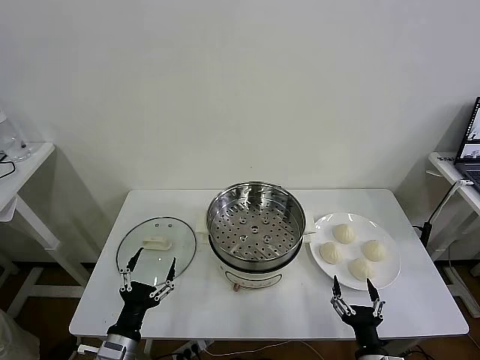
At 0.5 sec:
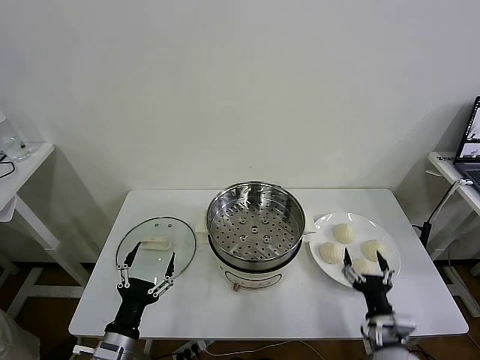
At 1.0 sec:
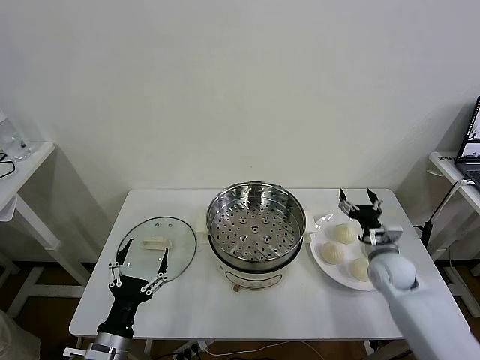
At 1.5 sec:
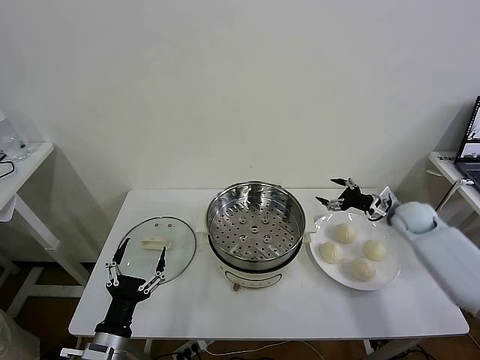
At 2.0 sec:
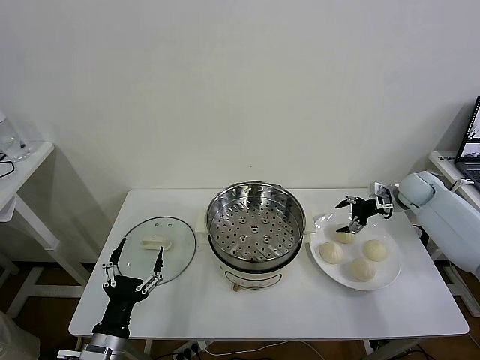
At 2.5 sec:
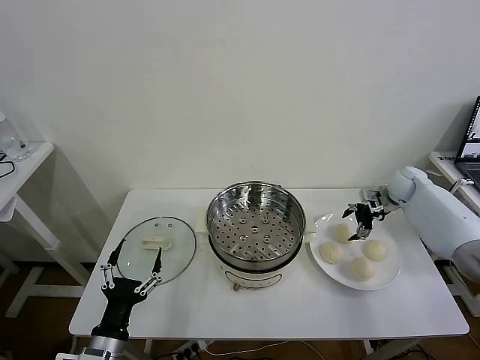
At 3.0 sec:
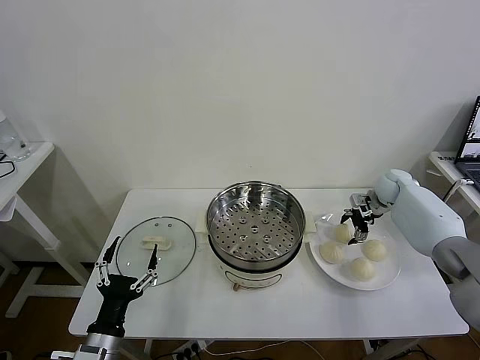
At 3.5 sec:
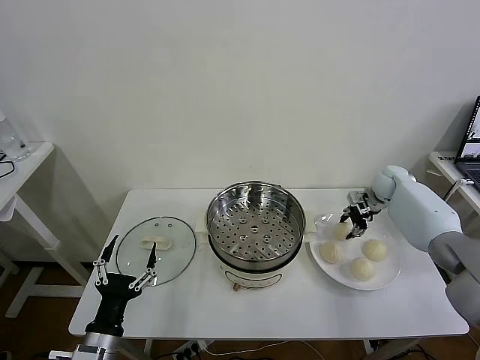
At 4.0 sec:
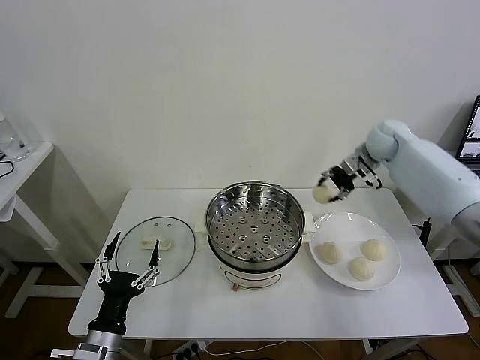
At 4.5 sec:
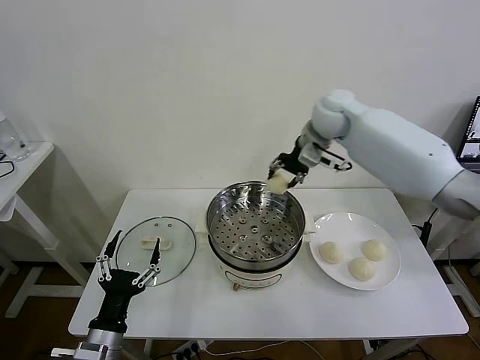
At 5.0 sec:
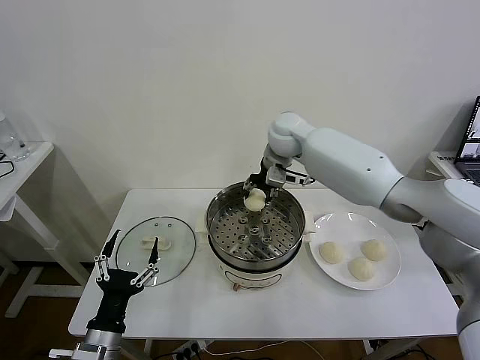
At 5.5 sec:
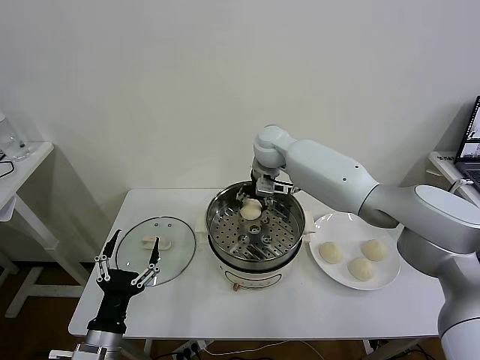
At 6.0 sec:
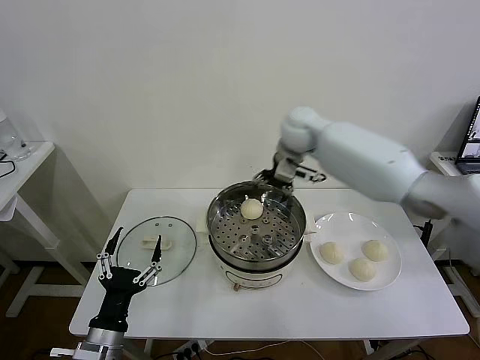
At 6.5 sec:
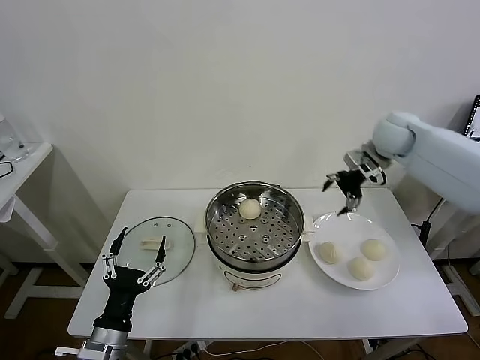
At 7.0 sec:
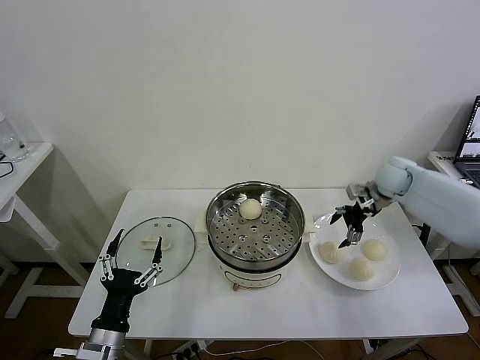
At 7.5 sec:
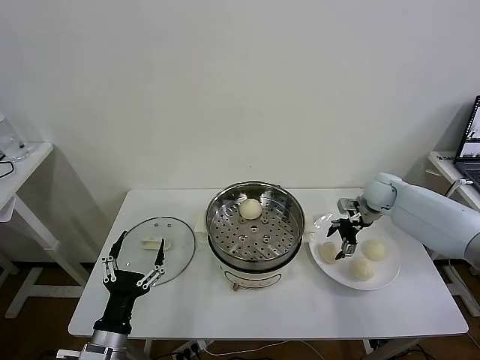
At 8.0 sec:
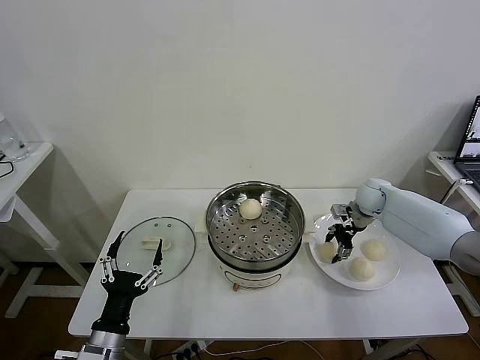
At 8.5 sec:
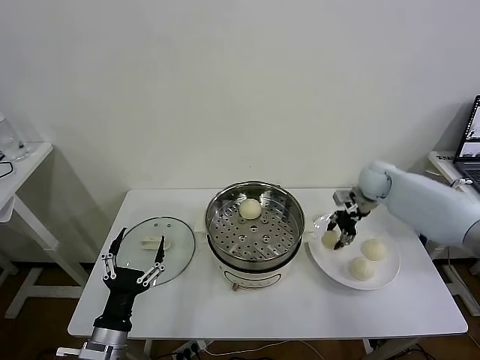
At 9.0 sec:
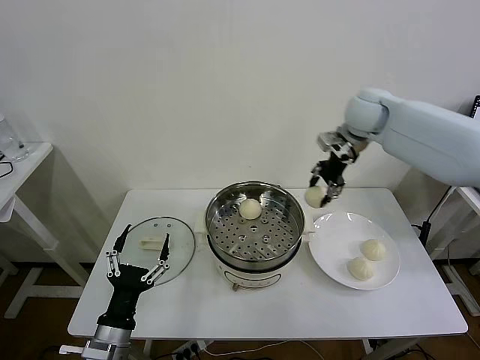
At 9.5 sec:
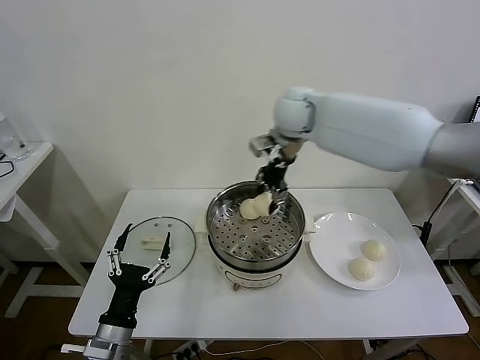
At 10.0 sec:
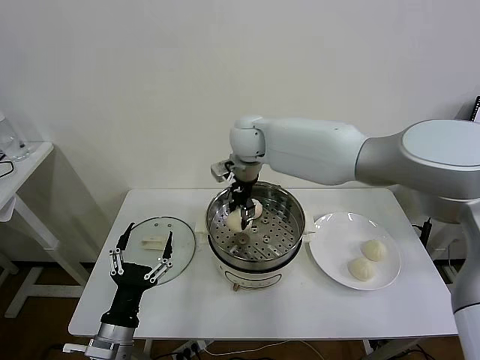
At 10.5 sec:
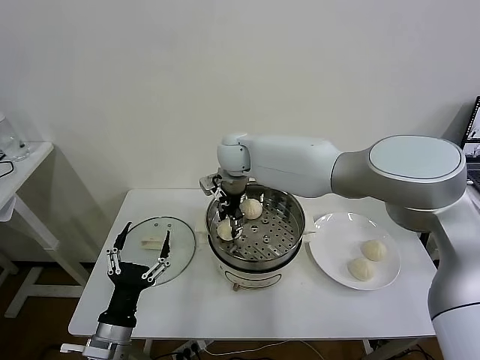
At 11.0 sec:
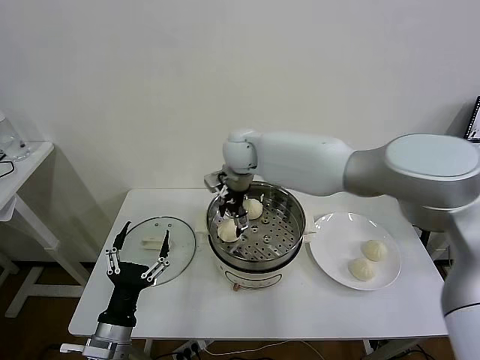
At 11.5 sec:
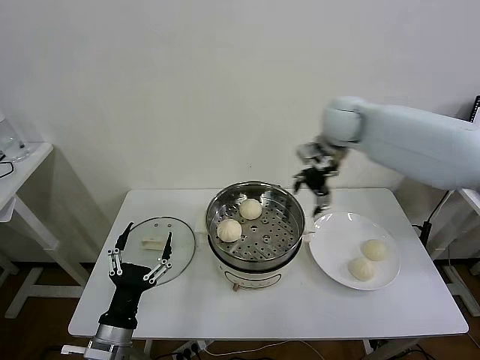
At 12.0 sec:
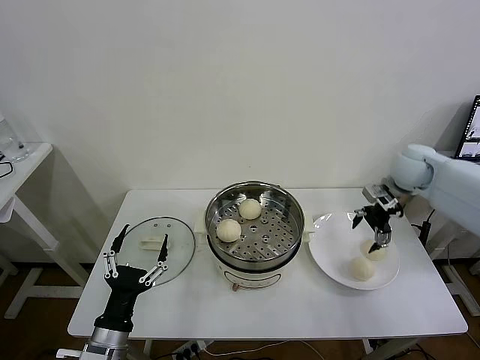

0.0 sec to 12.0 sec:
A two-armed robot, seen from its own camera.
Task of the whole recording: take steamed baozi put them in steamer then cover it.
Step, 0.0 sec to 3.0 sec: Grasp the baozi in the plate with right gripper.
Step, 3.5 sec to 5.5 sec: Place the baozi on the steamer with right gripper.
Step, 6.0 sec to 8.0 sec: Grasp the baozi in the plate with right gripper.
Step, 8.5 sec to 10.5 sec: Place the baozi on the steamer with right gripper.
2.0 sec to 4.0 sec: The right gripper moves upward and to the left, approximately 20 cm, and closes.
4.0 sec to 6.0 sec: The right gripper goes roughly 15 cm to the left, and opens its fingers.
6.0 sec to 8.0 sec: The right gripper heads downward and to the right, covering roughly 30 cm, and closes up.
8.0 sec to 10.0 sec: The right gripper moves to the left and upward, about 40 cm.
10.0 sec to 12.0 sec: The right gripper is displaced to the right by about 40 cm, and opens up.

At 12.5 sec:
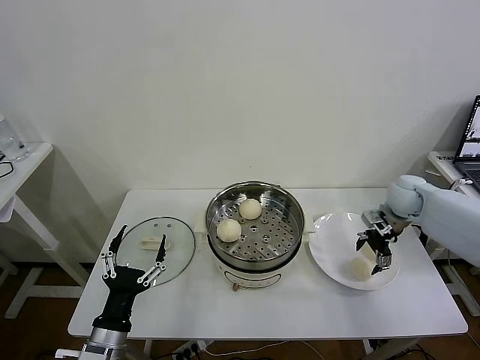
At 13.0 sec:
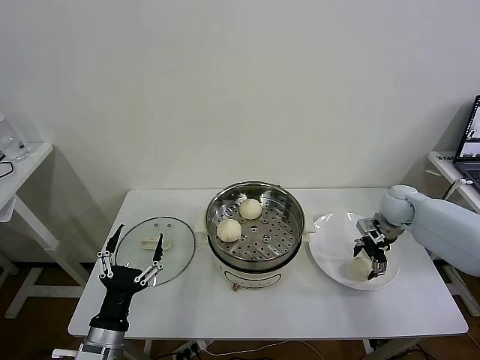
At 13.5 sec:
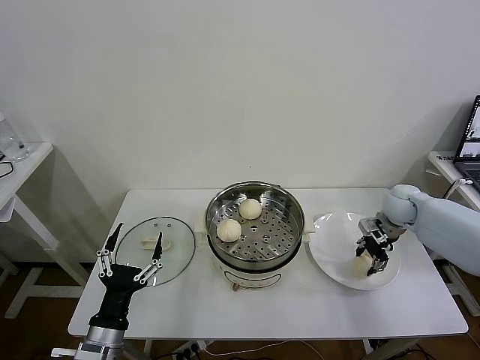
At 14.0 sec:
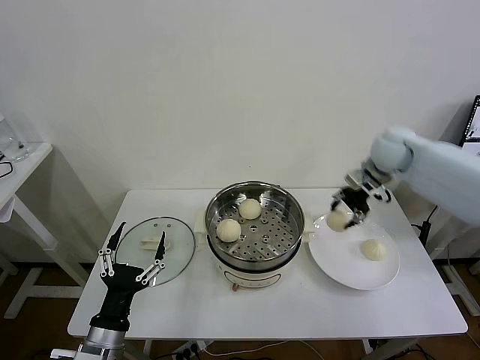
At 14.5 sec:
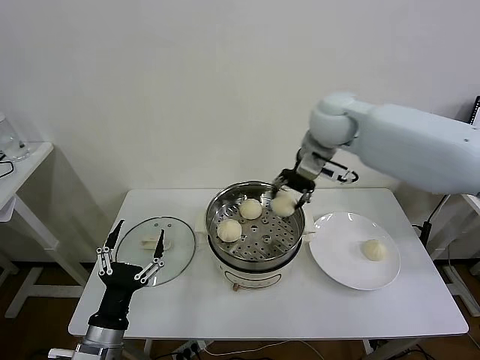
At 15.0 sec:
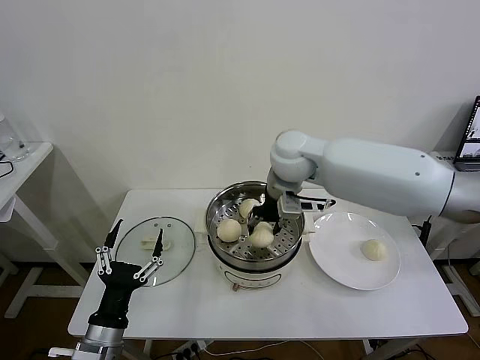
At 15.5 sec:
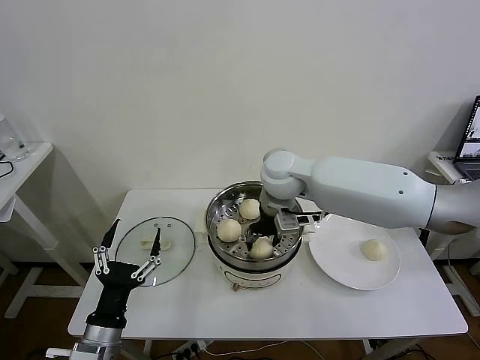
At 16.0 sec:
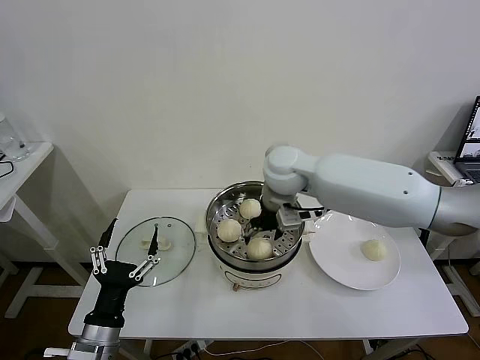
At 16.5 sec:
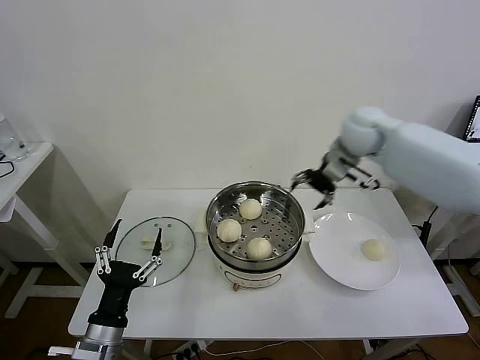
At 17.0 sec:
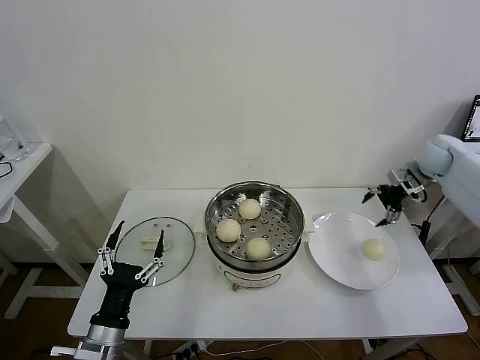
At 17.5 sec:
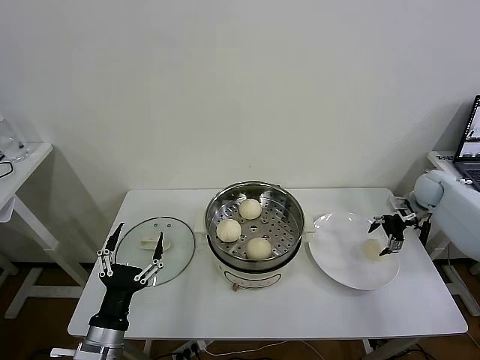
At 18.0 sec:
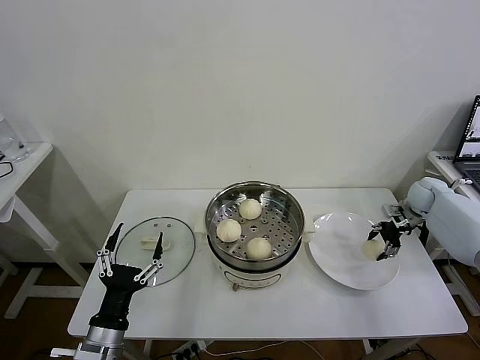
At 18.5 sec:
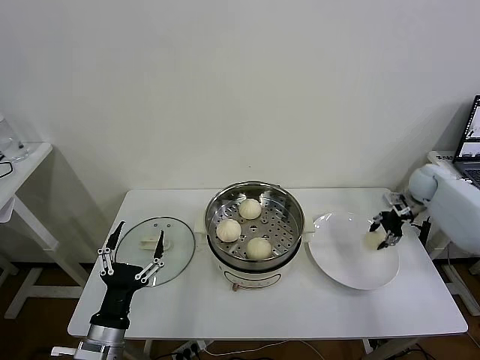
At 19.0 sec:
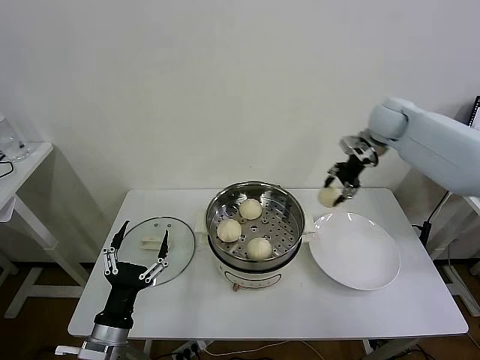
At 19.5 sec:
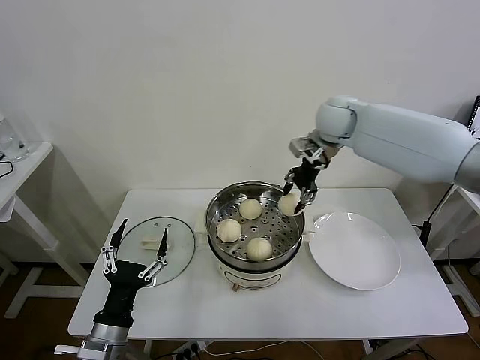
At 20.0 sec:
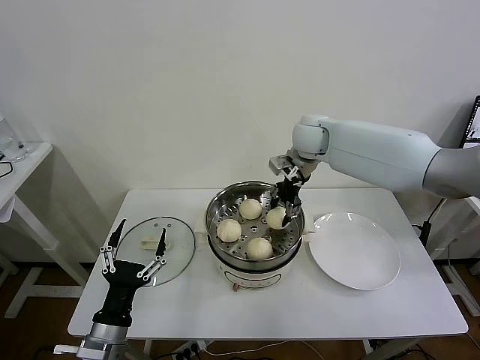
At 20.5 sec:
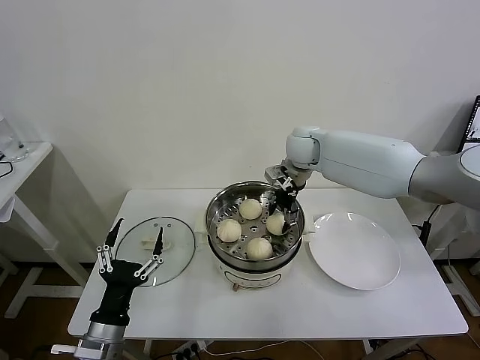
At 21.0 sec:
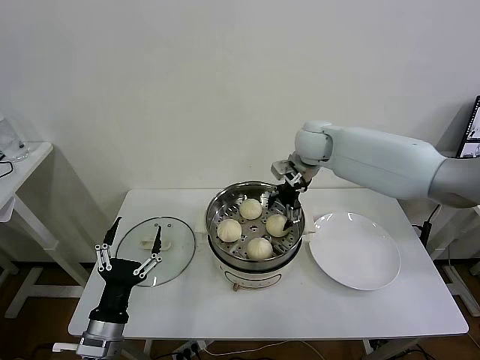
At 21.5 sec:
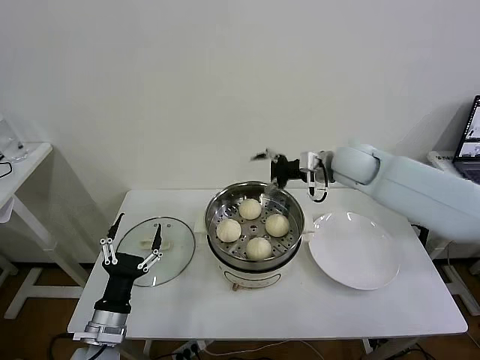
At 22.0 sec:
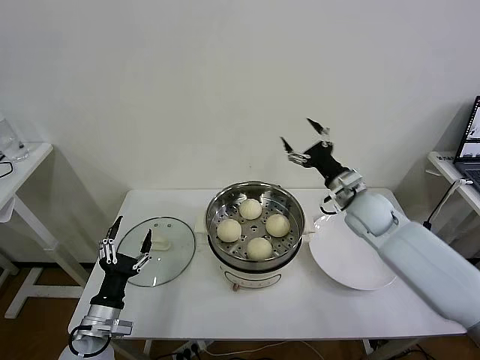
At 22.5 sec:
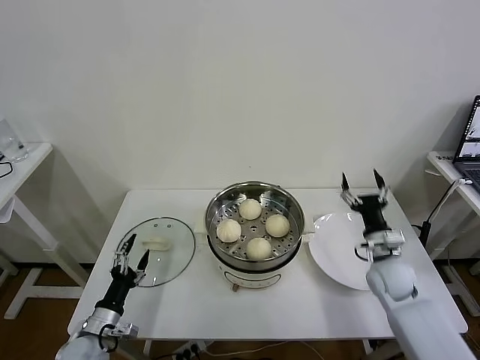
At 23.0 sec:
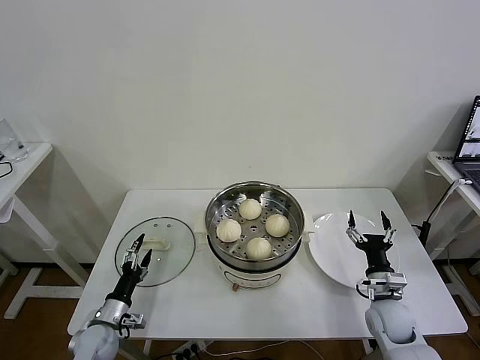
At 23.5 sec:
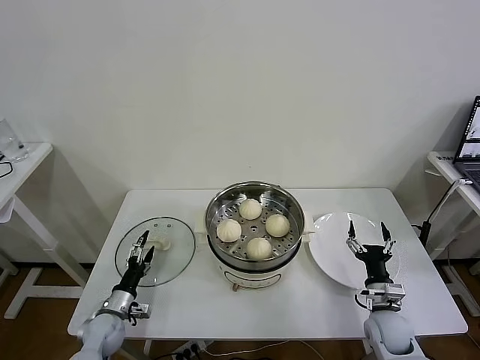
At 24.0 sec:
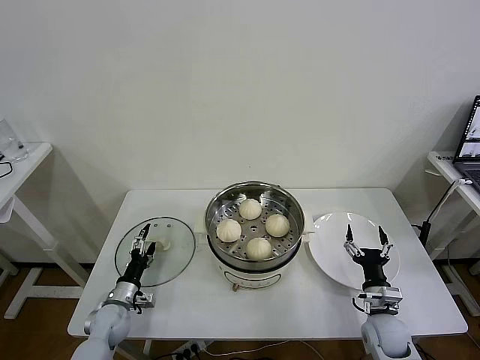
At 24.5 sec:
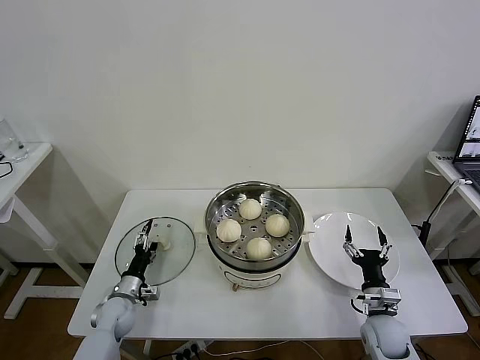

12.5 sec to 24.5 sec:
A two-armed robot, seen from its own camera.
Task of the whole recording: take steamed baozi put them in steamer then cover it.
Step, 13.5 sec to 15.5 sec: Place the baozi on the steamer with right gripper.
Step, 16.5 sec to 18.0 sec: Grasp the baozi in the plate with right gripper.
Step, 18.5 sec to 21.0 sec: Place the baozi on the steamer with right gripper.
12.5 sec to 14.5 sec: The right gripper moves to the left and upward, about 30 cm, and closes its fingers.
14.5 sec to 16.5 sec: The right gripper heads to the right, covering about 10 cm, and opens.
16.5 sec to 18.5 sec: The right gripper goes about 25 cm to the right and downward, and closes up.
18.5 sec to 20.5 sec: The right gripper shifts approximately 35 cm to the left.
20.5 sec to 22.5 sec: The left gripper is displaced downward, to the left and forward by some 15 cm; the right gripper travels backward, downward and to the right by roughly 35 cm, and opens its fingers.
22.5 sec to 24.5 sec: The right gripper goes about 15 cm backward and downward; the left gripper heads forward and downward, covering roughly 15 cm.

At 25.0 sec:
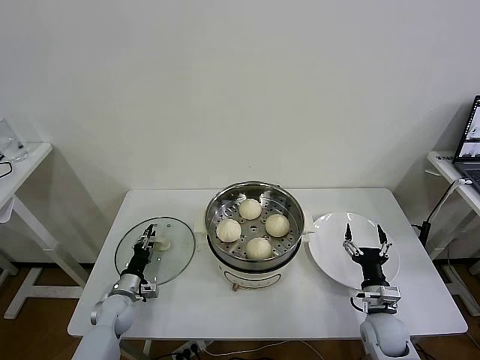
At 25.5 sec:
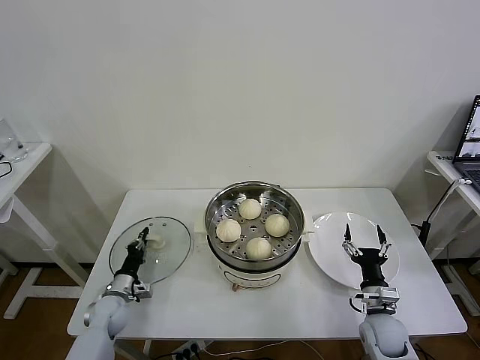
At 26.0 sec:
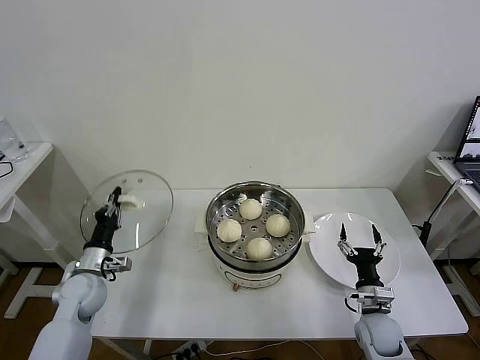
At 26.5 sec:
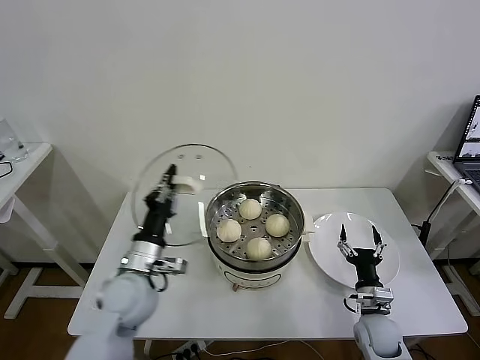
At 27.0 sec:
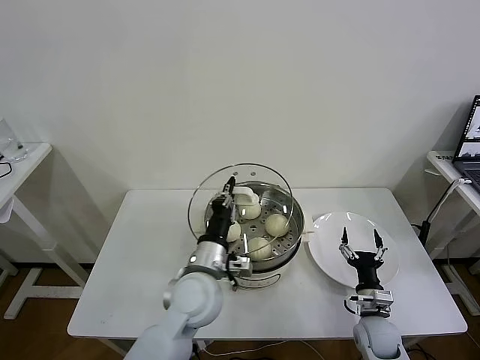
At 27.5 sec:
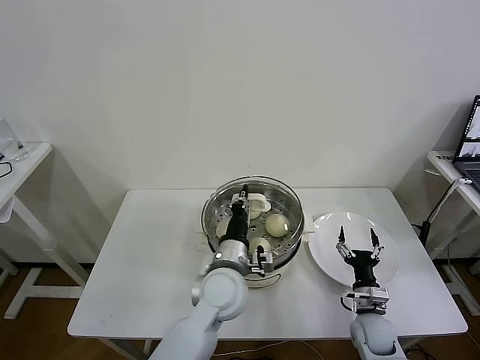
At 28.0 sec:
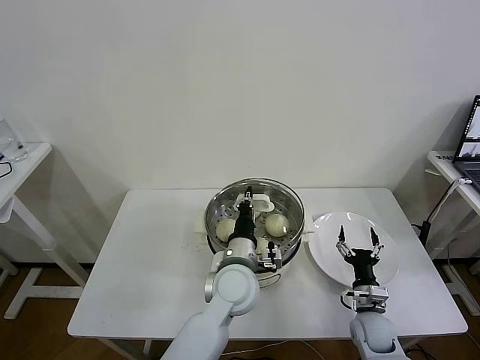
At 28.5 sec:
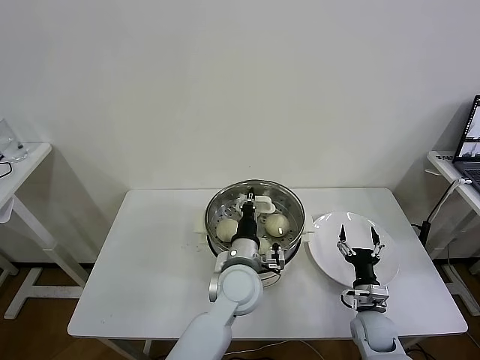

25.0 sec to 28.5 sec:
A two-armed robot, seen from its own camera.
Task of the whole recording: take steamed baozi put them in steamer then cover it.
25.0 sec to 27.0 sec: The left gripper shifts roughly 35 cm to the right and upward, and closes its fingers.
27.0 sec to 28.5 sec: The left gripper goes approximately 10 cm to the right.
